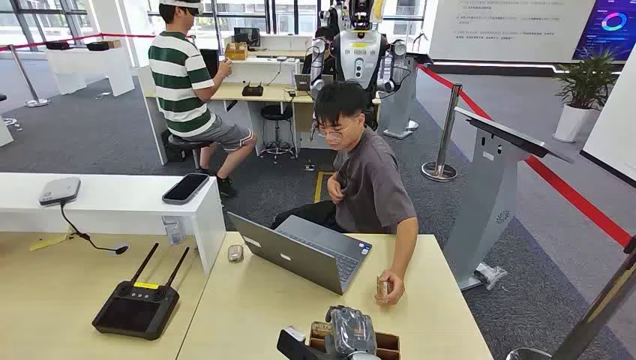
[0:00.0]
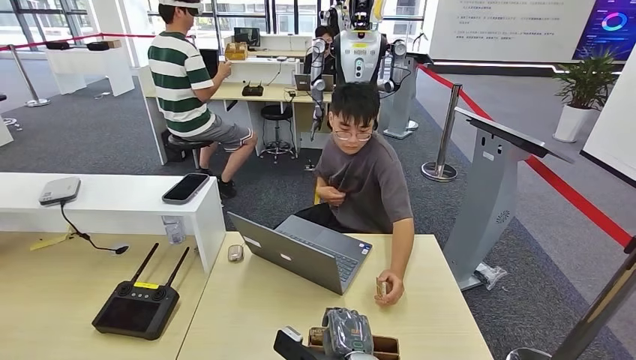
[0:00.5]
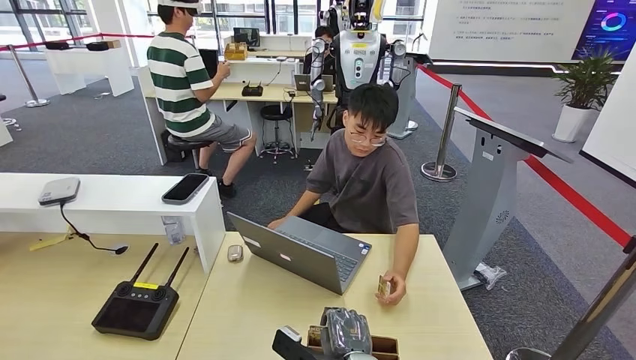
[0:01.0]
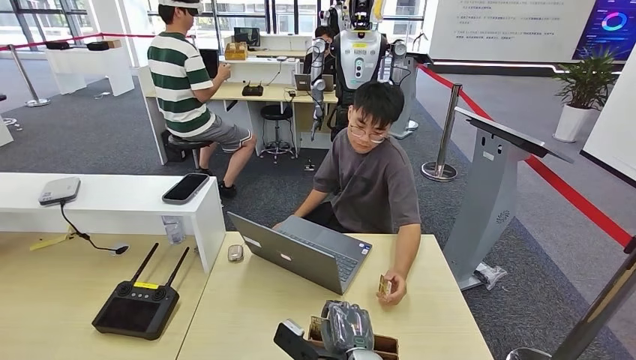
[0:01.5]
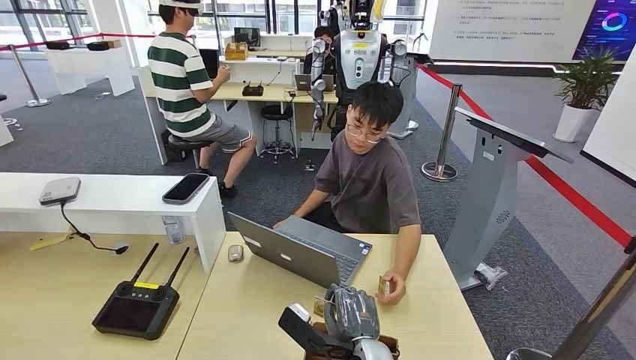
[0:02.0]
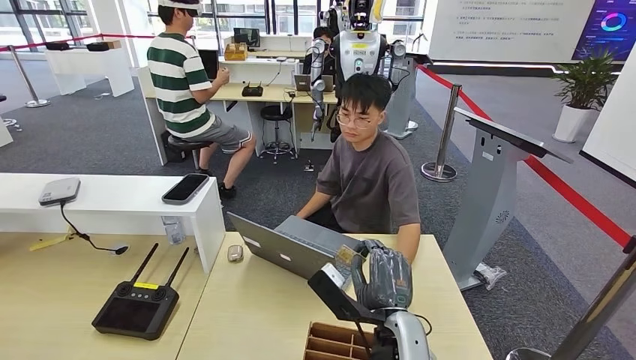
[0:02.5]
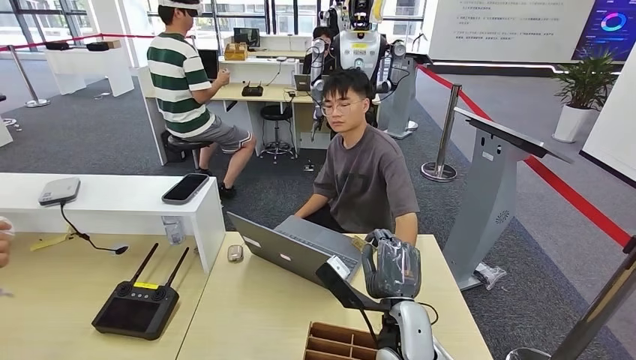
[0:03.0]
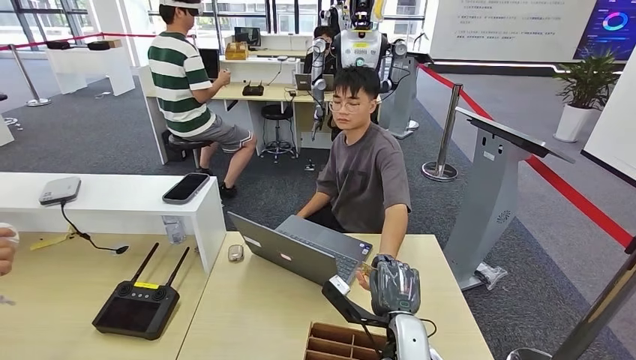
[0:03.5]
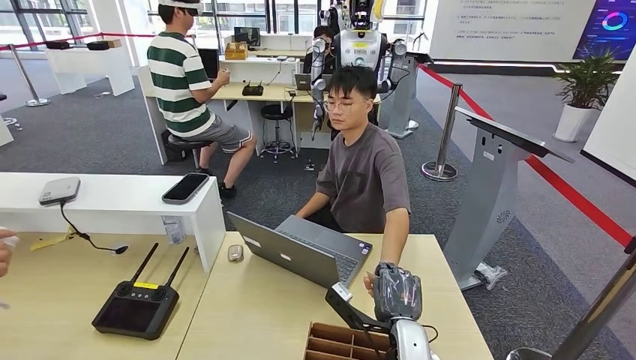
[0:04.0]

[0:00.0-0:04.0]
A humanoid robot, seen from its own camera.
Step, 0:00.0 to 0:01.0: Pick up the room card from the card holder.
Step, 0:03.5 to 0:04.0: Hand the room card to the target.
0:02.0 to 0:04.0: The right hand heads to the right, covering roughly 5 cm, and travels upward and back again, some 5 cm each way.

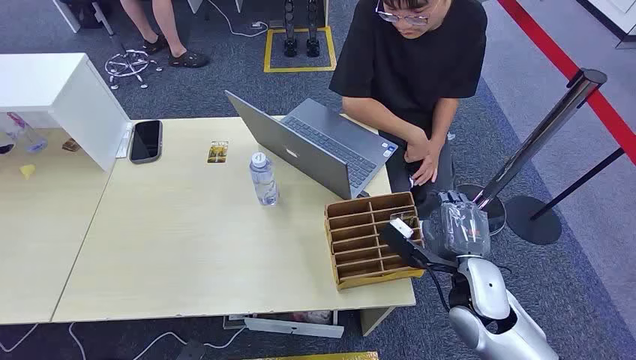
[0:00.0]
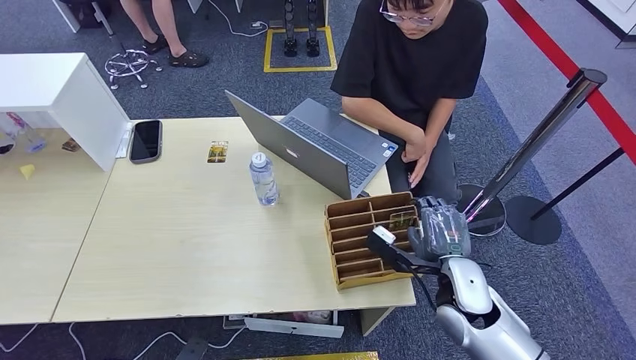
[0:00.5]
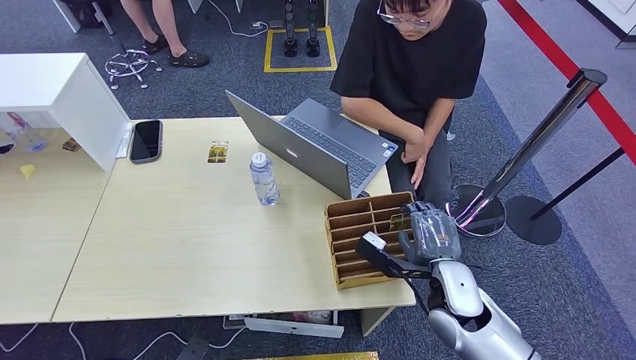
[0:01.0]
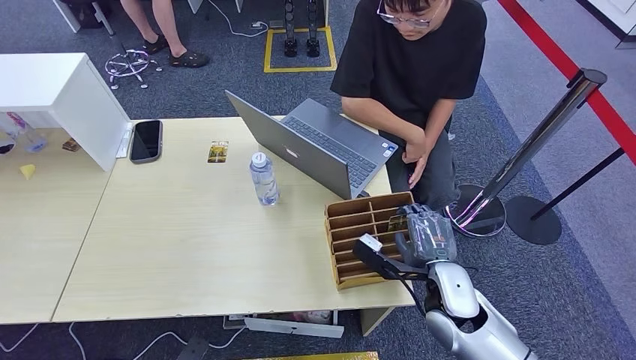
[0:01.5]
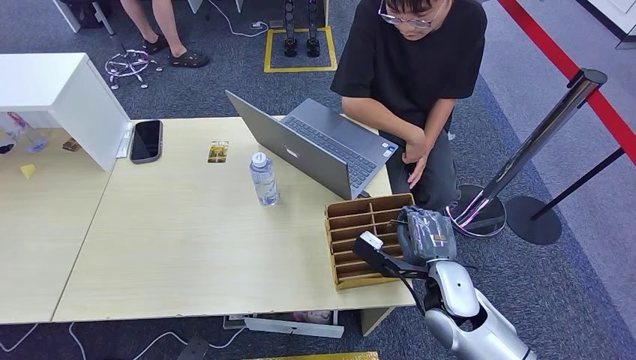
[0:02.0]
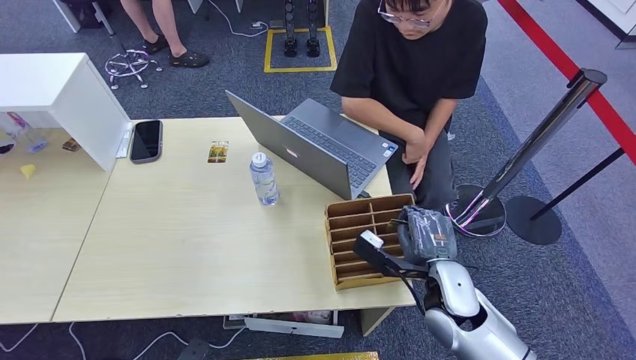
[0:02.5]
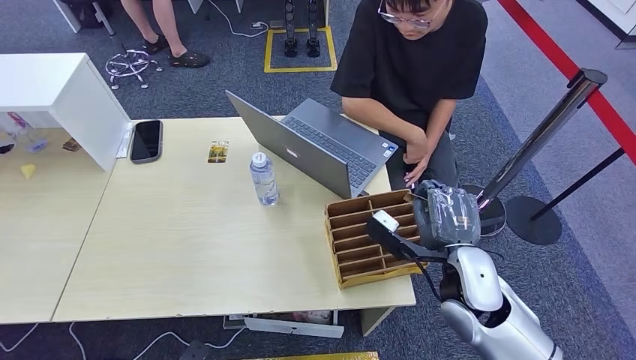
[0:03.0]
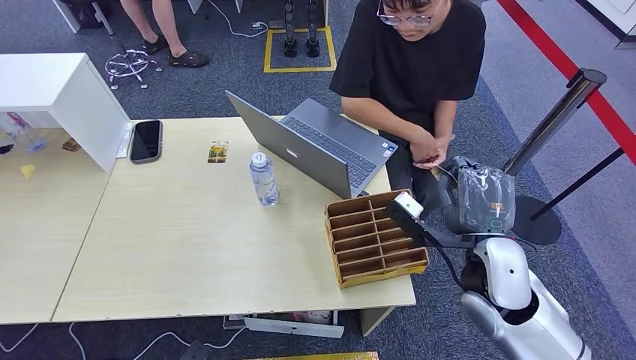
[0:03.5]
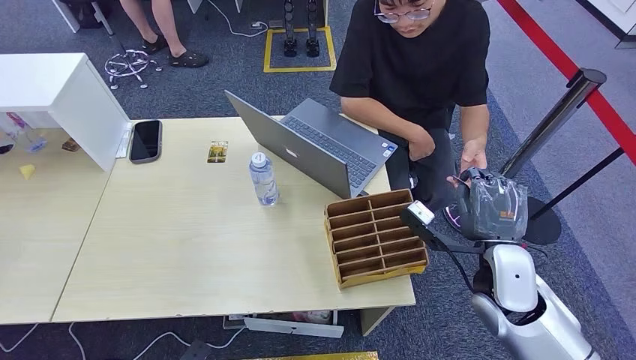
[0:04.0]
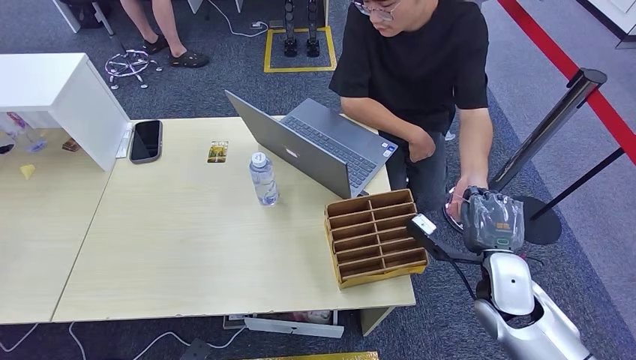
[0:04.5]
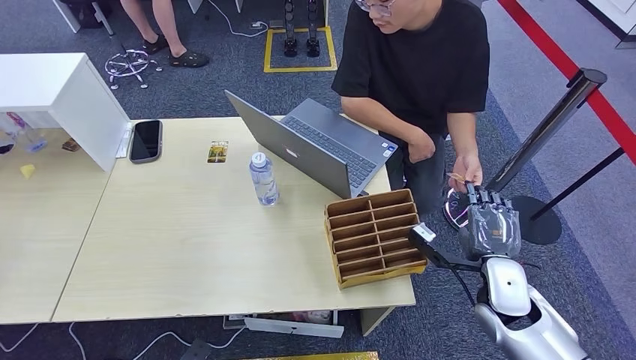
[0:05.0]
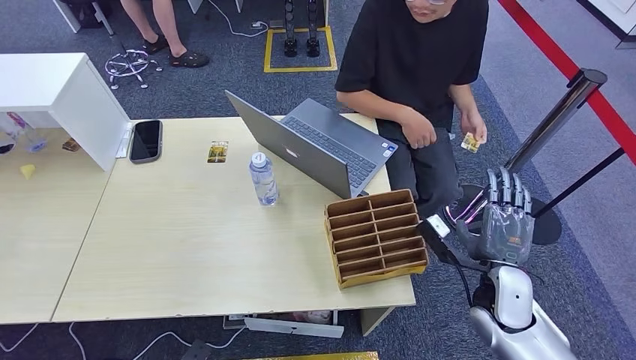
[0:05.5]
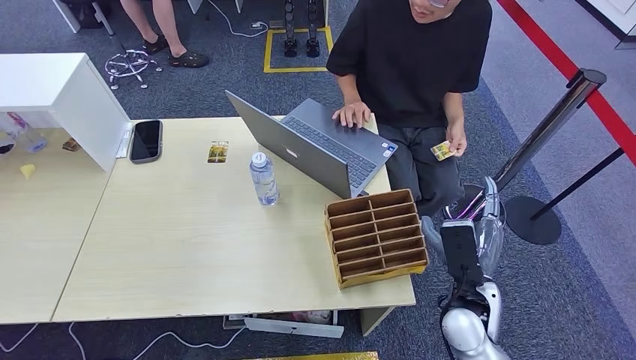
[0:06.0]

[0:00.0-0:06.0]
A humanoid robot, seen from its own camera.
Step, 0:00.0 to 0:03.0: Pick up the room card from the card holder.
Step, 0:03.5 to 0:06.0: Hand the room card to the target.
0:02.0 to 0:04.0: The right hand moves to the right and upward, approximately 10 cm.
0:04.0 to 0:06.0: The right hand heads downward, covering about 5 cm.
